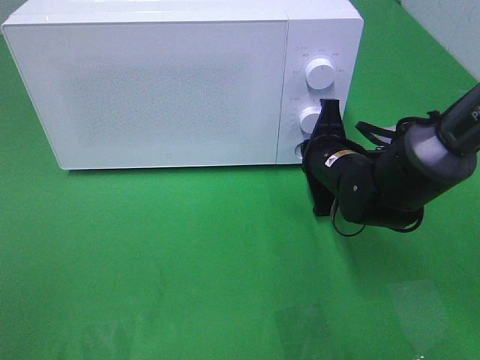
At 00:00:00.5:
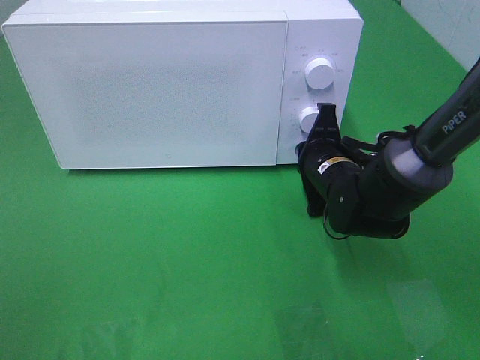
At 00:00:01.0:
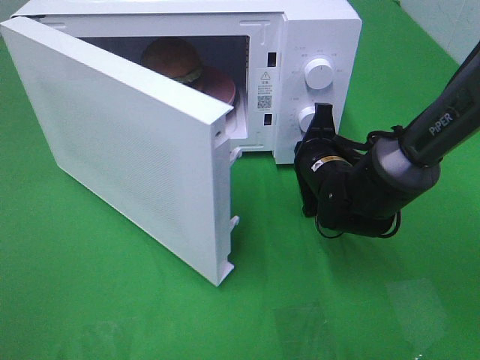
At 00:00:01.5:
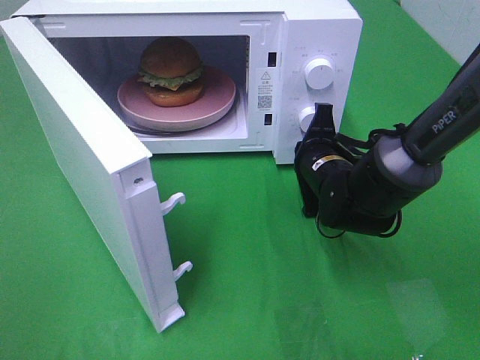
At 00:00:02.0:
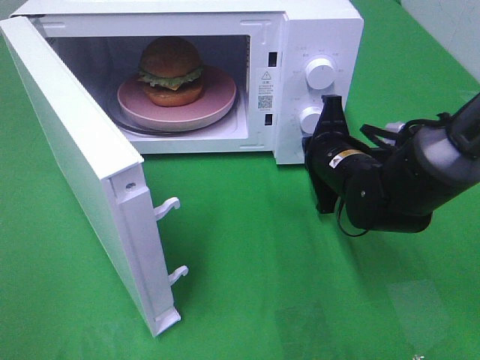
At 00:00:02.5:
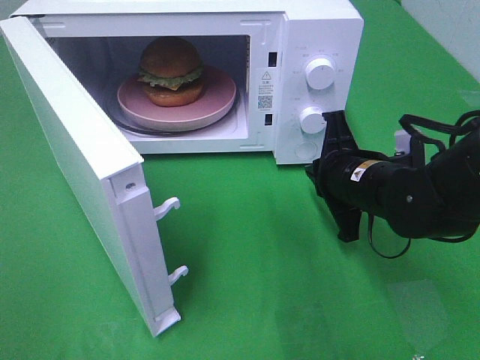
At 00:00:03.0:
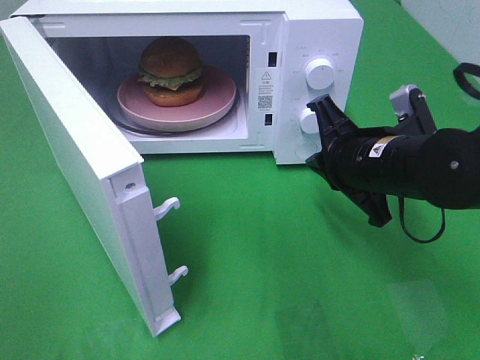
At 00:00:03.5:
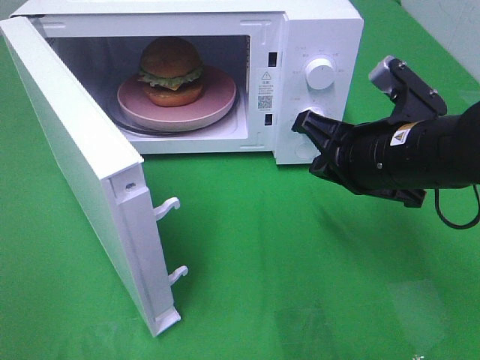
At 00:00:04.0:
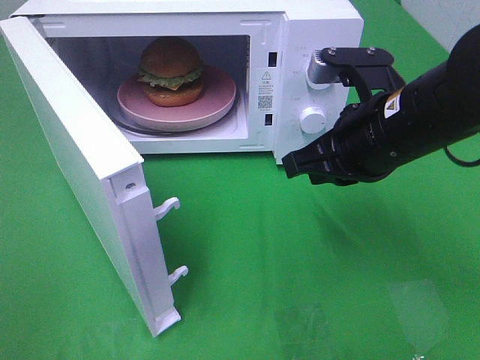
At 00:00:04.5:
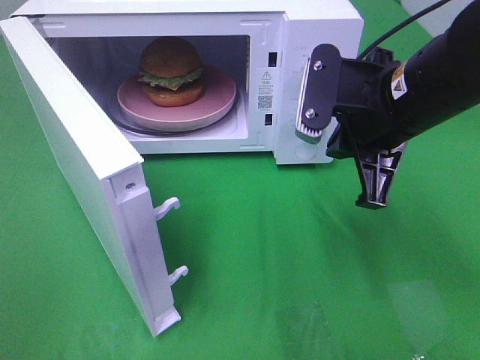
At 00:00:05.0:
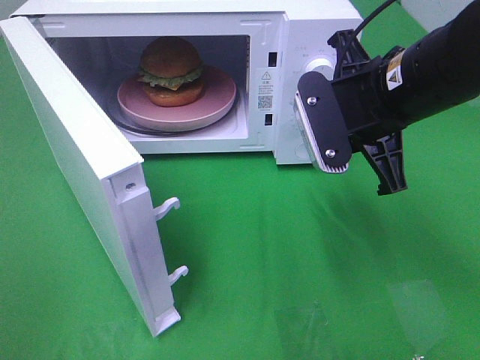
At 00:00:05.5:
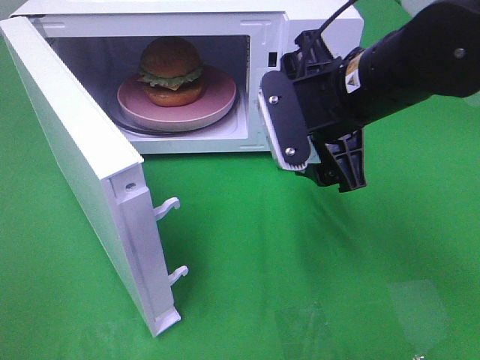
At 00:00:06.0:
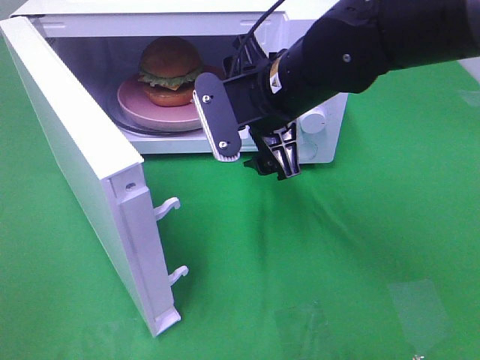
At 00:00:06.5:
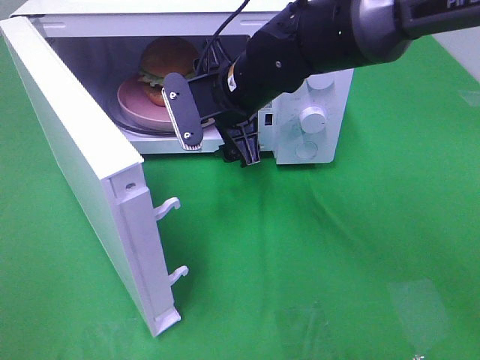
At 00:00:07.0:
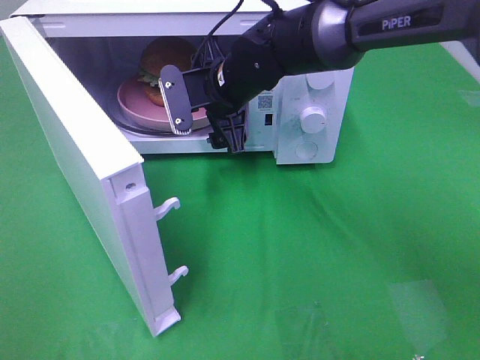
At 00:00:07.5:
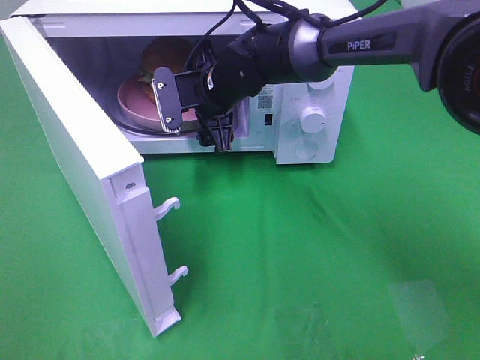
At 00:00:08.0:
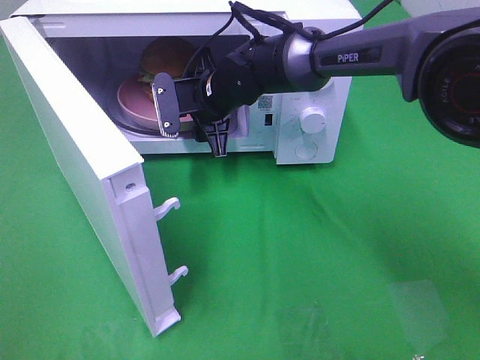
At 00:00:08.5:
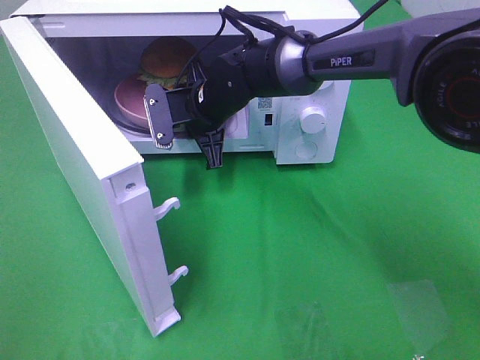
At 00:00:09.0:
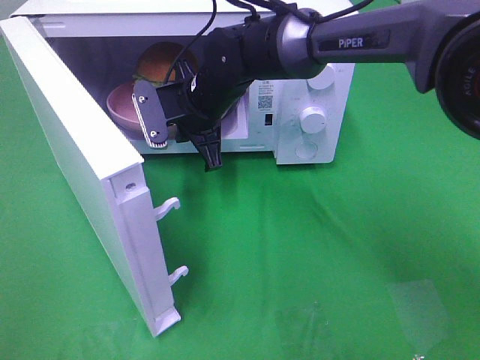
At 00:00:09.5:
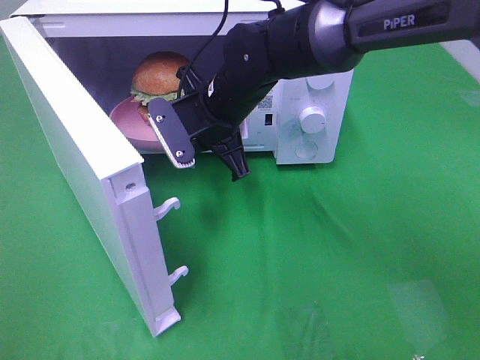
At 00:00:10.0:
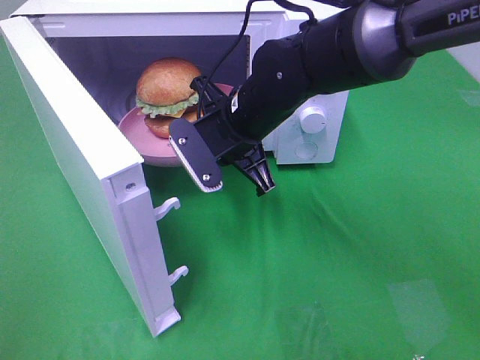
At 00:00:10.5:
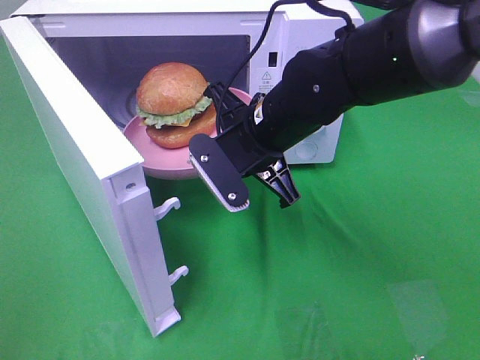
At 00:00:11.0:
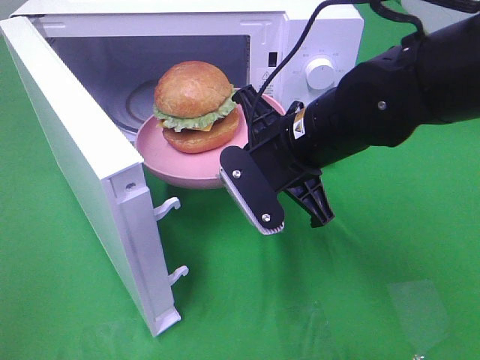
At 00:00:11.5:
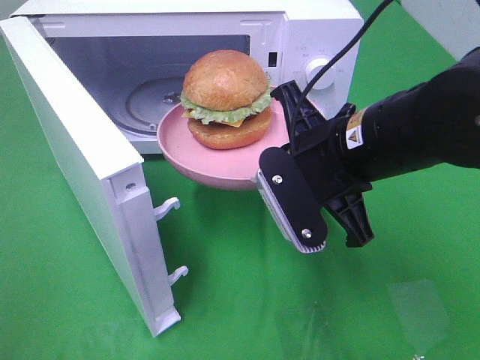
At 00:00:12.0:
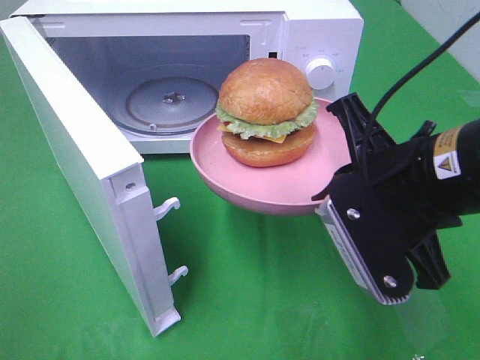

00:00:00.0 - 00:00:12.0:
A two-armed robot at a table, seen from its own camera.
Task of the whole recording: Heat the burger.
Step, 00:00:00.0 - 00:00:02.0: Right hand: press the switch.
Step, 00:00:02.5 - 00:00:08.0: Right hand: grab the plate with the hamburger.
00:00:02.0 - 00:00:04.0: The right gripper shifts some 15 cm upward and backward.
00:00:04.0 - 00:00:06.0: The right gripper goes approximately 10 cm to the left and forward, and opens its fingers.
00:00:06.0 - 00:00:08.0: The right gripper heads forward, downward and to the left, covering approximately 15 cm.
00:00:08.0 - 00:00:10.0: The right gripper goes approximately 10 cm backward, and closes up.
00:00:10.0 - 00:00:12.0: The right gripper travels backward, to the right and upward by roughly 20 cm.

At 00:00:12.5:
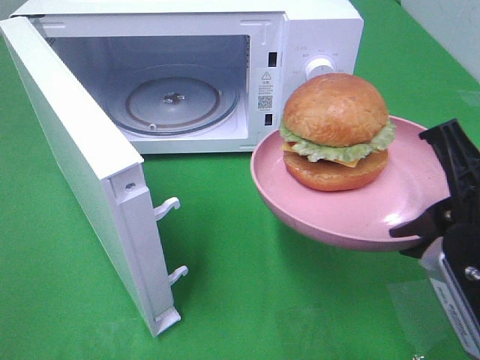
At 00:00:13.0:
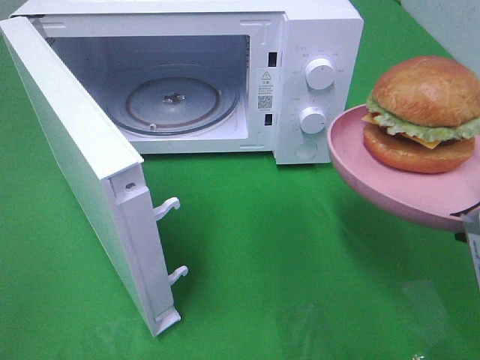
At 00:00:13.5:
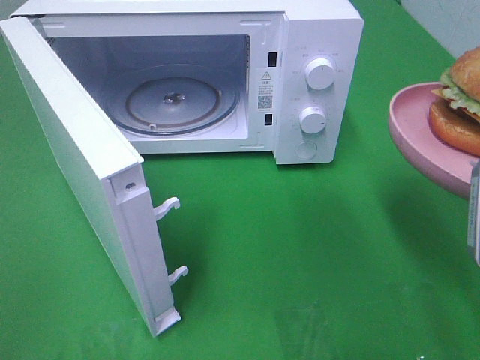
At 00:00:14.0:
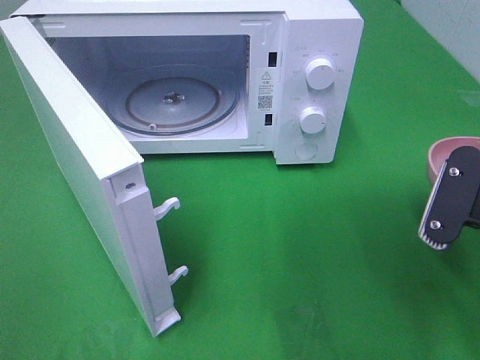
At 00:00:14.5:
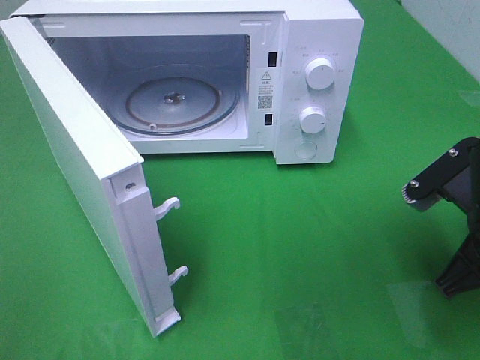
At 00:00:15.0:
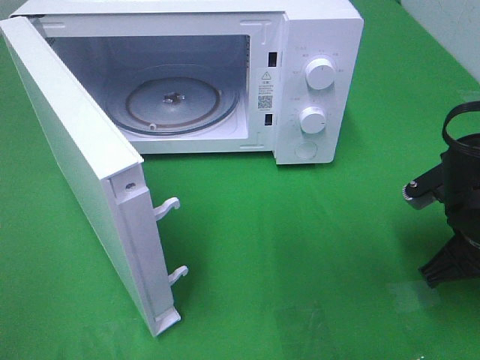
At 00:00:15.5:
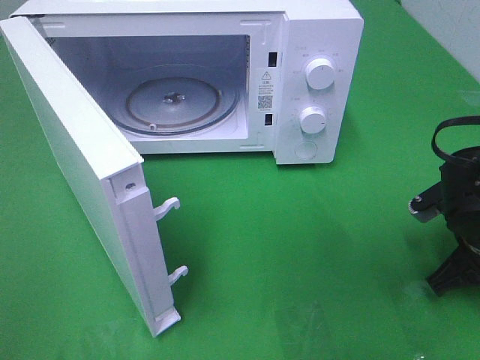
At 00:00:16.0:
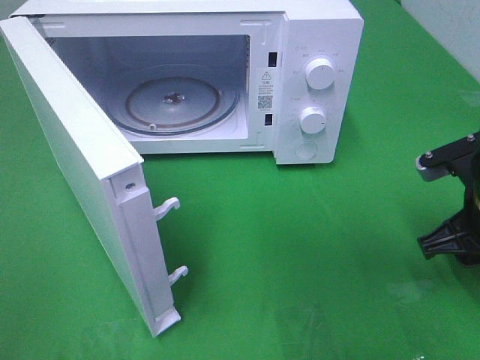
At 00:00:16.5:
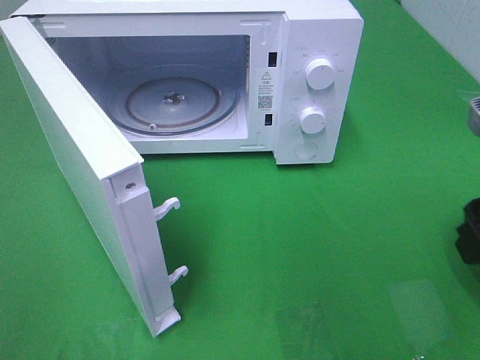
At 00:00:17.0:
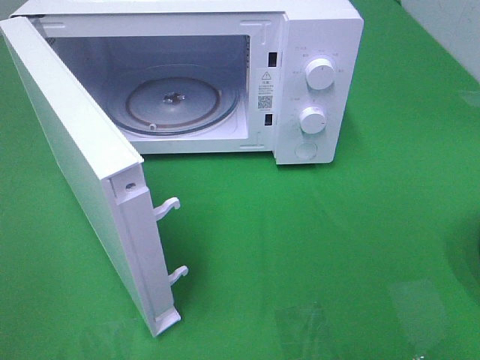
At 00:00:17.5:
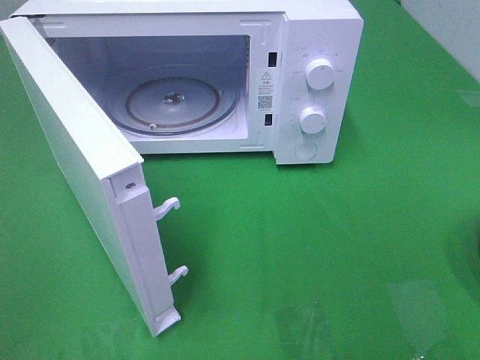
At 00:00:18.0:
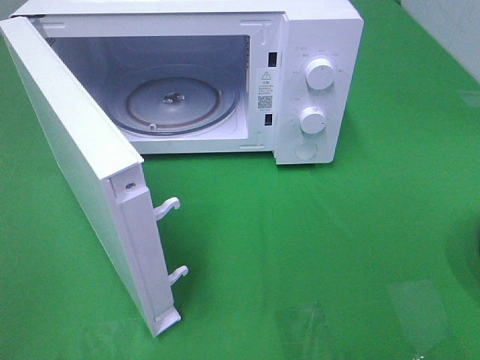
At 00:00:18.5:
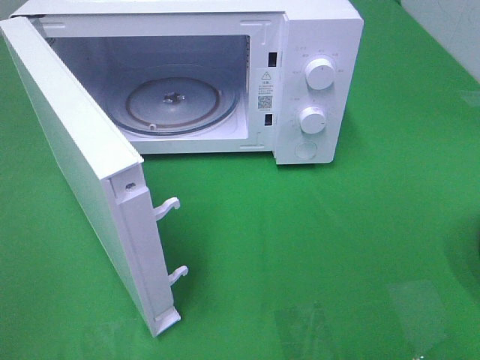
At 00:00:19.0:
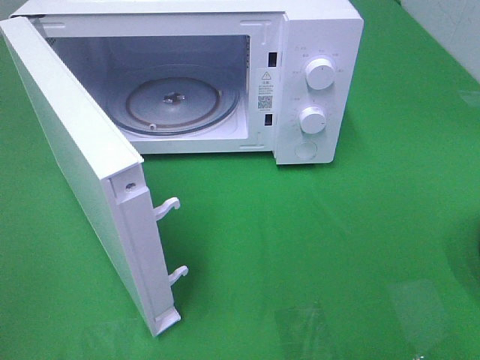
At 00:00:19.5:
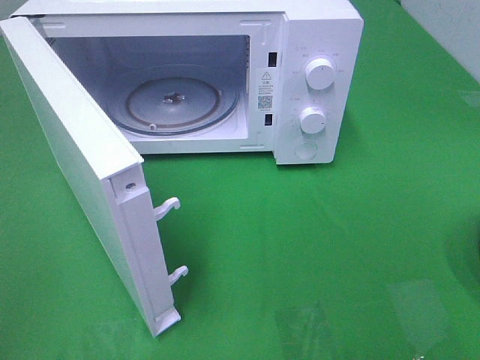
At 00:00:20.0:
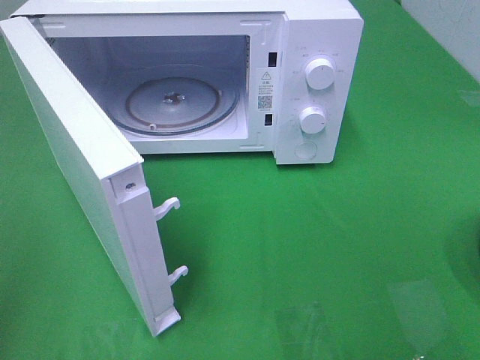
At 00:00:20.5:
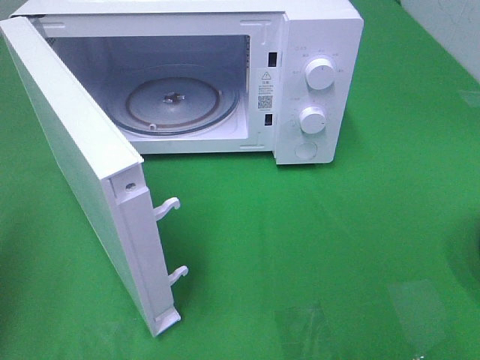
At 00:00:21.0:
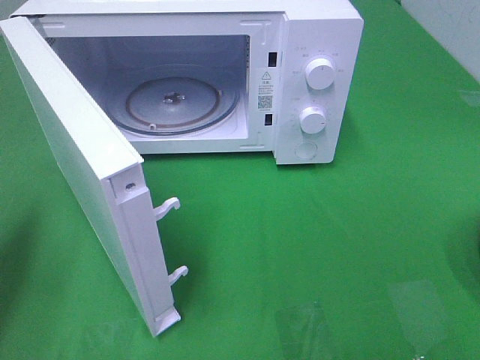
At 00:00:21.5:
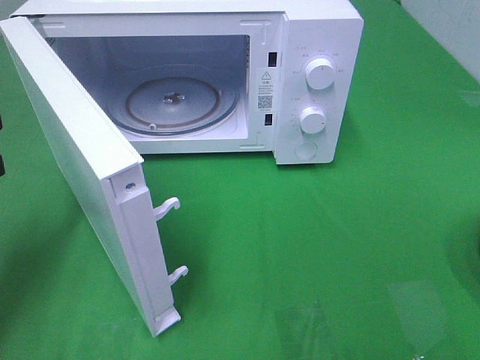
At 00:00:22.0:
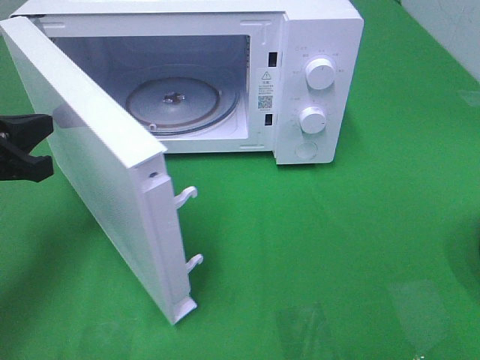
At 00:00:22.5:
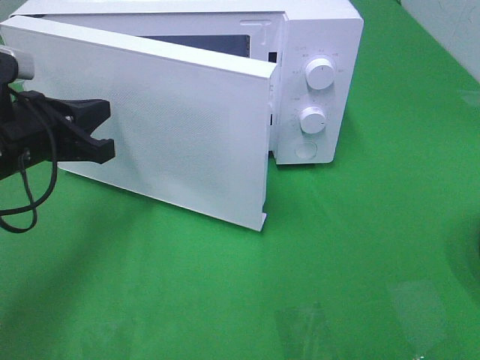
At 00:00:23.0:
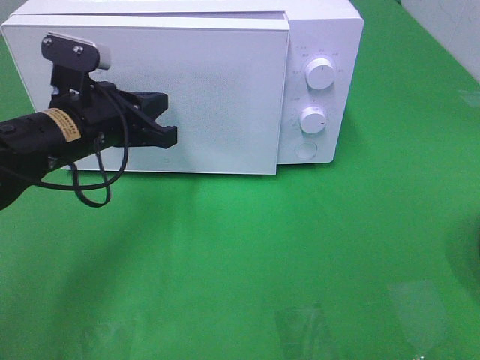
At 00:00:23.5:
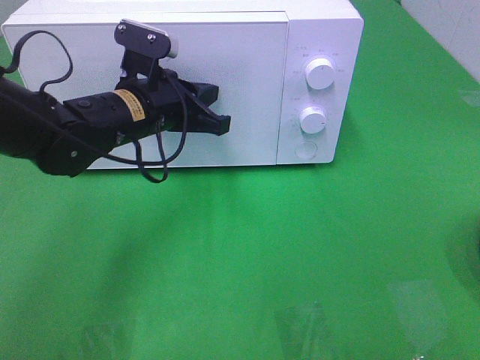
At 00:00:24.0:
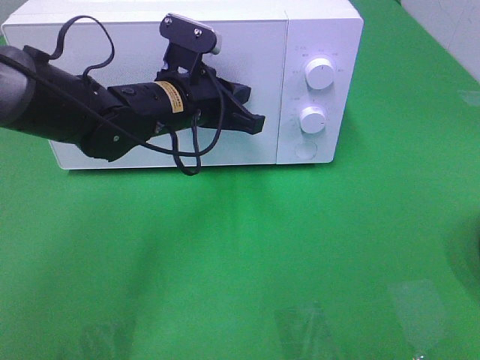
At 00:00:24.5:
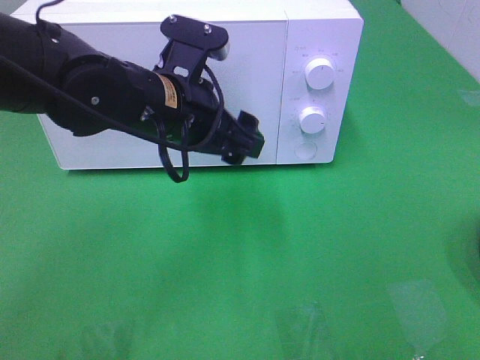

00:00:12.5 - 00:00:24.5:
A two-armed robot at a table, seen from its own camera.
Task of the whole recording: Heat the burger.
Step, 00:00:12.5 - 00:00:15.5: Right hand: place the plate on the table.
Step, 00:00:16.0 - 00:00:24.0: Left hand: close the microwave door.
00:00:12.5 - 00:00:14.5: The right gripper is displaced downward and forward by about 10 cm.
00:00:14.5 - 00:00:16.5: The right gripper is displaced upward by roughly 10 cm, and opens up.
00:00:16.5 - 00:00:18.5: The right gripper shifts some 15 cm backward.
00:00:20.5 - 00:00:22.5: The left gripper travels forward, to the right and downward by about 20 cm.
00:00:22.5 - 00:00:24.5: The left gripper shifts some 15 cm to the right, and opens up.

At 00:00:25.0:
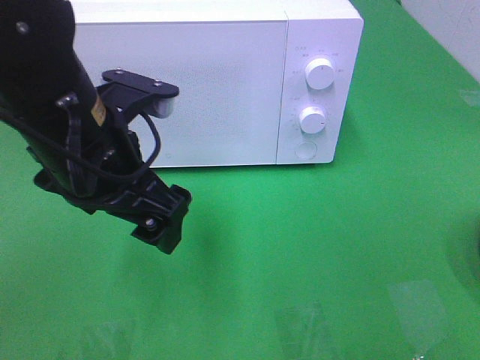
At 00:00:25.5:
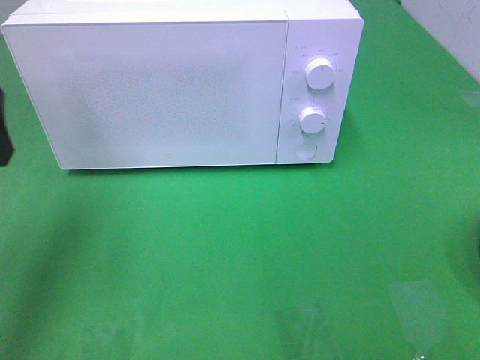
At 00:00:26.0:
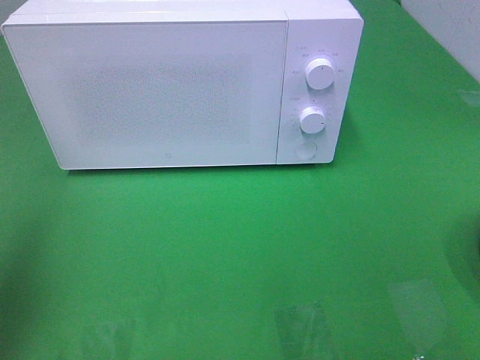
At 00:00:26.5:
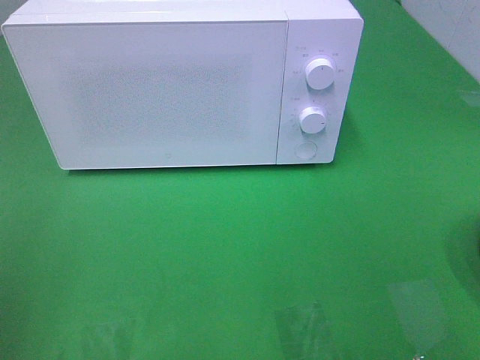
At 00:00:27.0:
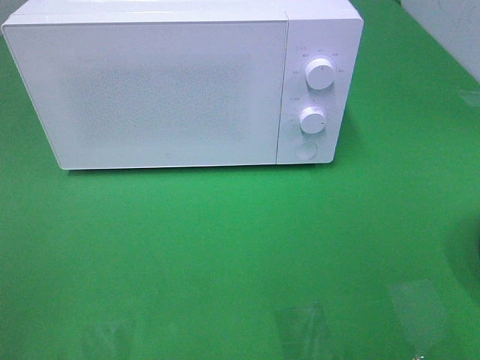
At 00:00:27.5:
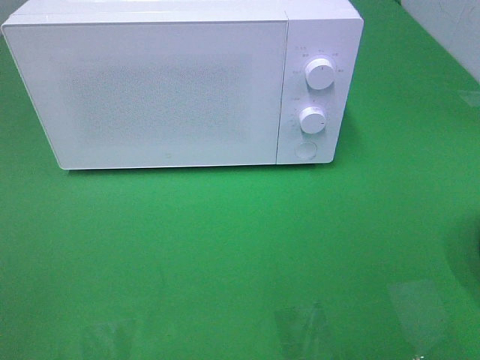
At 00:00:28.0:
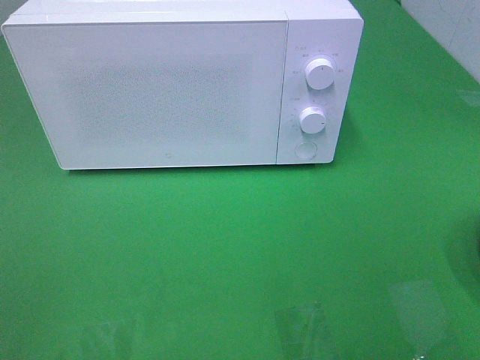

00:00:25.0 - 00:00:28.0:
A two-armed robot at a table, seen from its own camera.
Task of the whole recording: Heat the burger.
00:00:25.0 - 00:00:26.5: The left gripper is displaced to the left and backward by some 25 cm.
